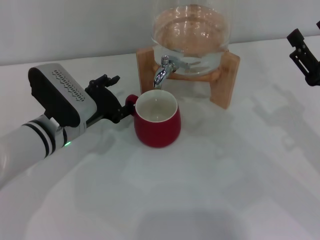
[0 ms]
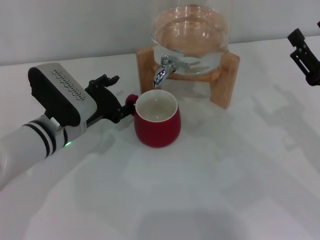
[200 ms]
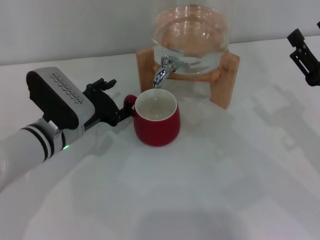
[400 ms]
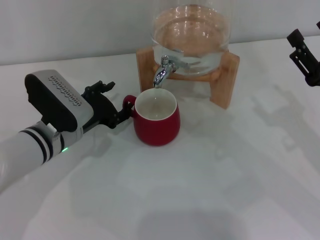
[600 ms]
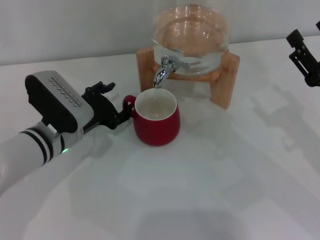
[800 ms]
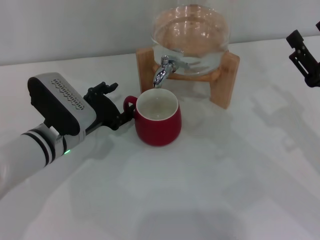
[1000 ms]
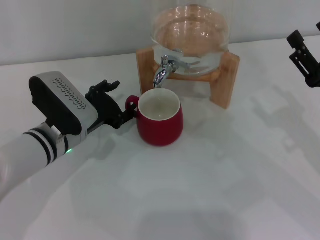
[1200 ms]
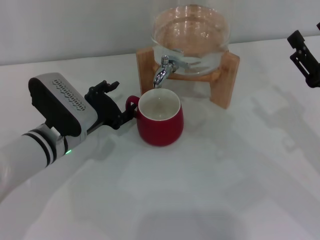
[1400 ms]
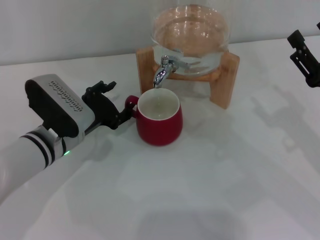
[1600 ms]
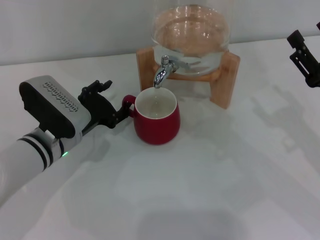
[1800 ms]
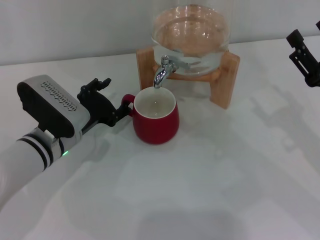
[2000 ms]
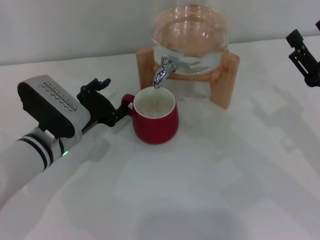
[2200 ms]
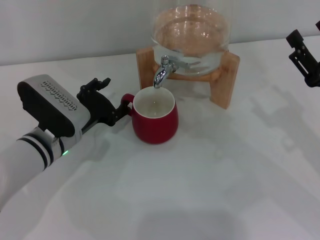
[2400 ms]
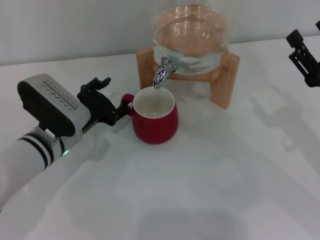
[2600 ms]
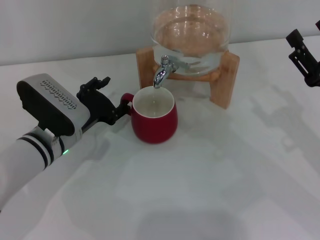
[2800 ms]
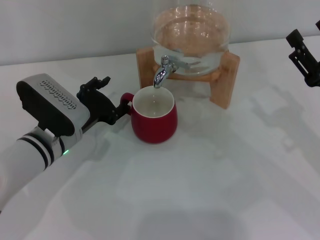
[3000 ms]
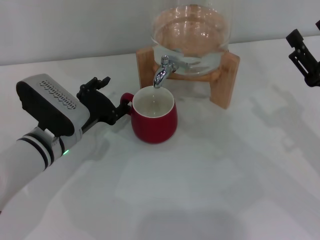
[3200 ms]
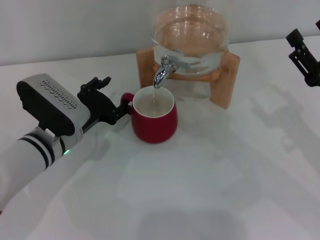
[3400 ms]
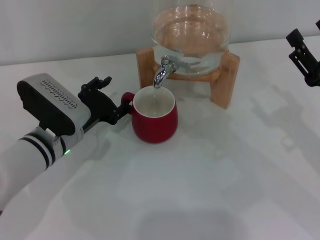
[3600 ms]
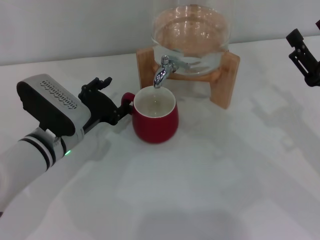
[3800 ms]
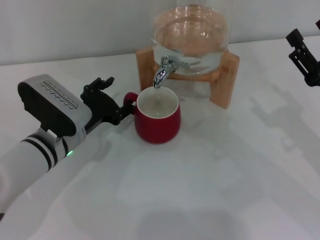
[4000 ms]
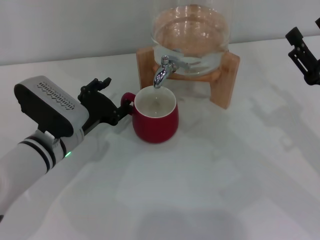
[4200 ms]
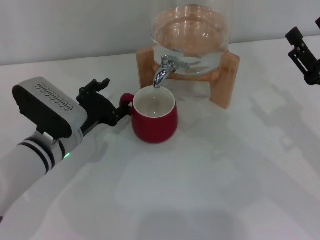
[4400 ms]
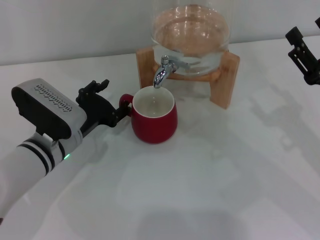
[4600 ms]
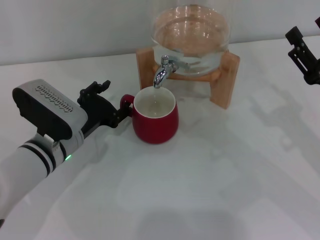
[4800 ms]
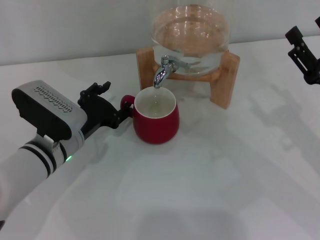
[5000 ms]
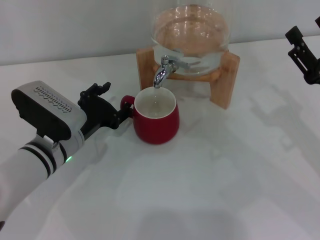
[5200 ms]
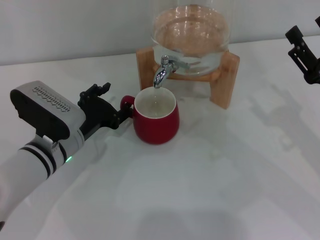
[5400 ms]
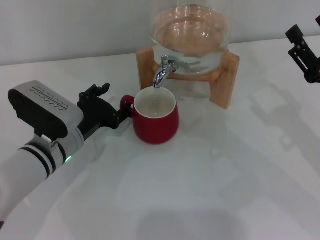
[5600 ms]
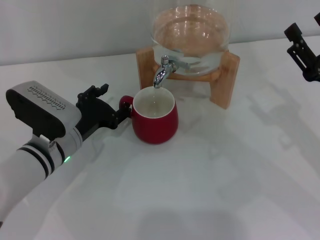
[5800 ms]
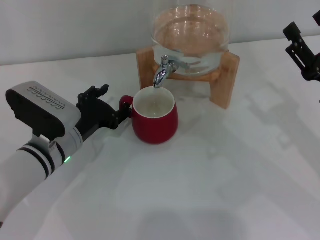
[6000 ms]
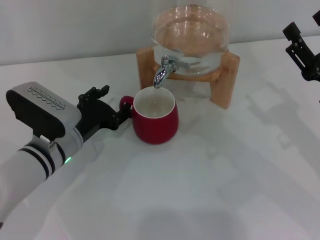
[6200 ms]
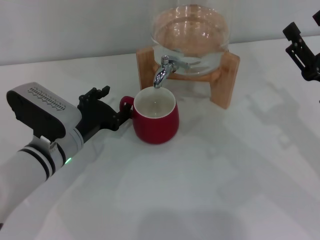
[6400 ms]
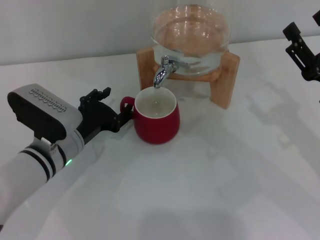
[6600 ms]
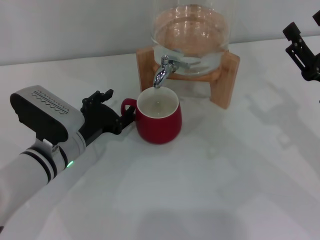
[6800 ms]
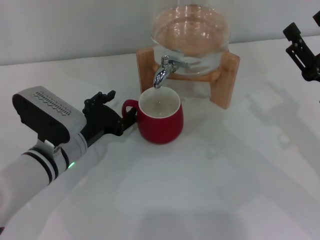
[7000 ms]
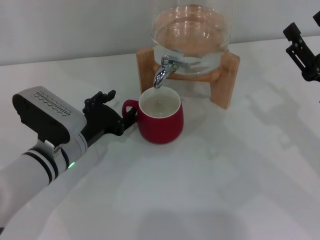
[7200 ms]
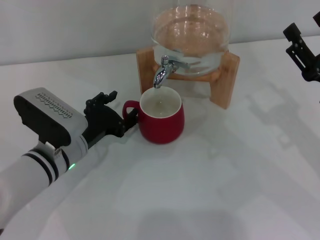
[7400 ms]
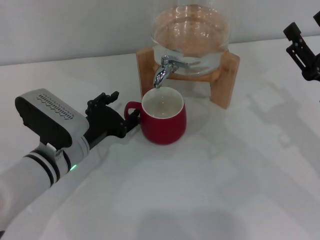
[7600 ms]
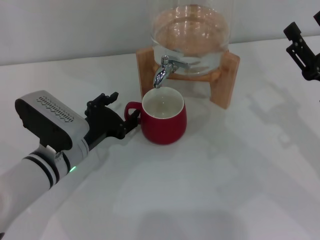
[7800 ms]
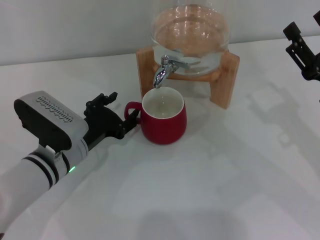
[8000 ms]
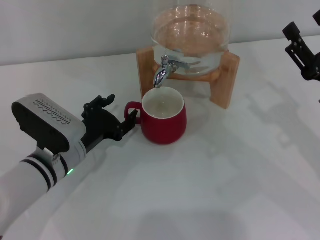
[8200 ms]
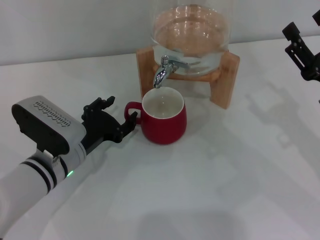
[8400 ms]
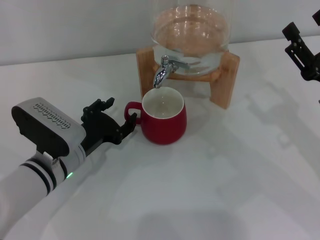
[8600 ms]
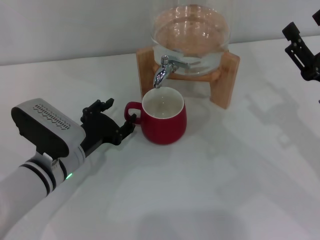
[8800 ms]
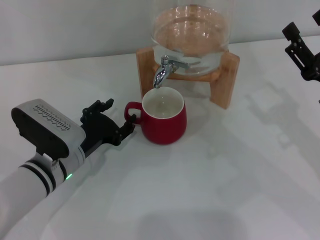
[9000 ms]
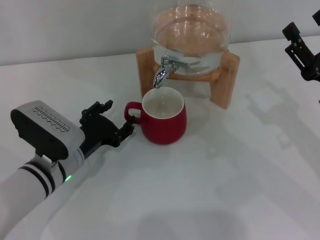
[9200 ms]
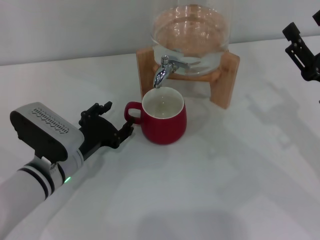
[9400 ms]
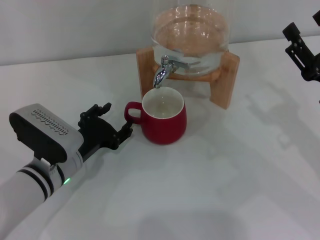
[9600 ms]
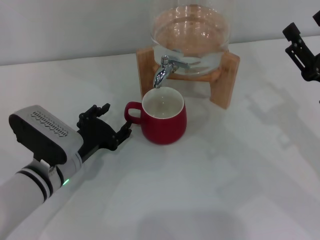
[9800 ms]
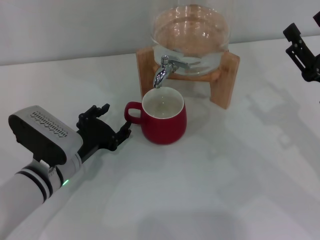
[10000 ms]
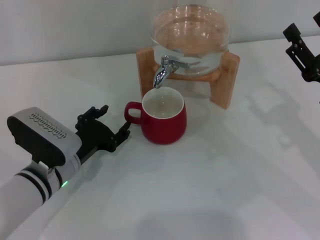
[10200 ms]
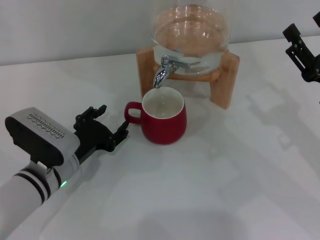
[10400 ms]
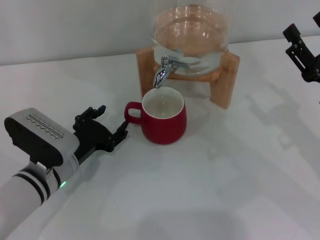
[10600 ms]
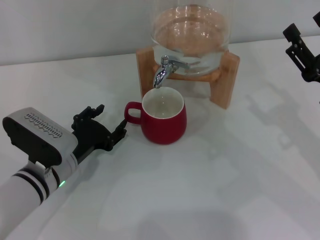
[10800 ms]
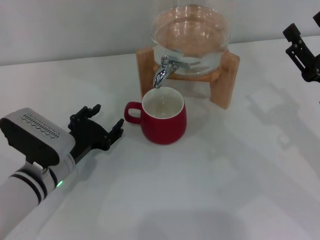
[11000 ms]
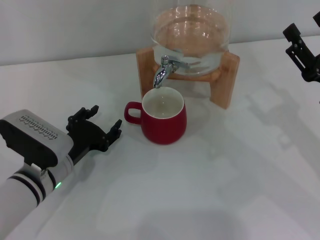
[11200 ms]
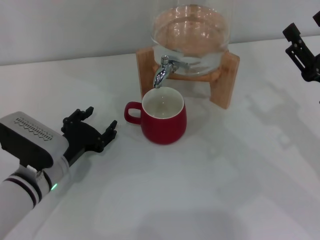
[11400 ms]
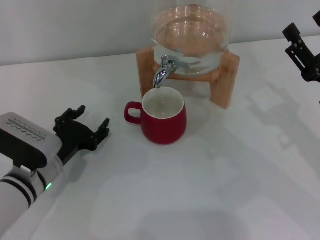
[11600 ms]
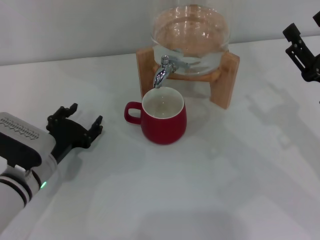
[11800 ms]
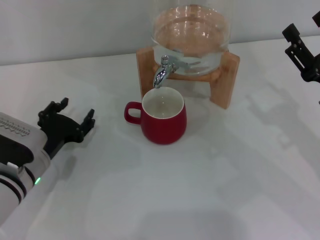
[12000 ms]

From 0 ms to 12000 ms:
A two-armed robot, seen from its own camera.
Task of the whole recording: the left gripper pick up the red cup and place it horizontally under the faucet, the right gripper turn on the faucet to fill the cup, and then turn off the faucet.
Step, from 0 ms to 9400 ms: Move the cup beneath the water dispenser nozzle with the left gripper.
From 0 ms to 3000 ms: The grippers stay close to where they were, moving slightly.
From 3000 ms to 4400 ms: The two grippers keep their place.
From 4400 ms to 6000 ms: There are only small adjustments of the grippers.
From 6000 ms to 7600 ms: Both grippers stay put.
From 7600 ms to 9000 ms: The grippers make only small movements.
From 9000 ms to 10400 ms: Both grippers stay put.
From 10400 ms to 12000 ms: The grippers stay close to where they were, moving slightly.

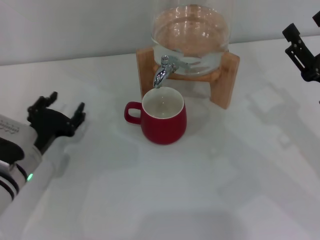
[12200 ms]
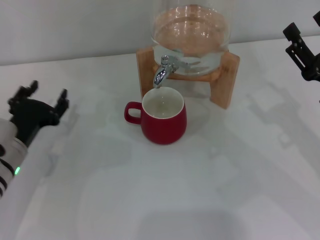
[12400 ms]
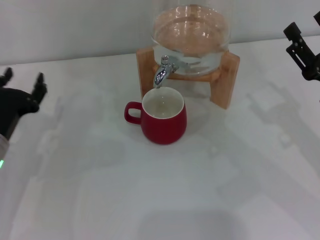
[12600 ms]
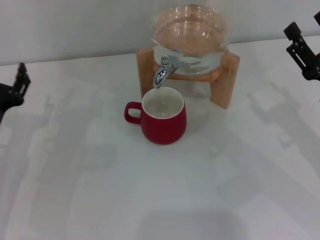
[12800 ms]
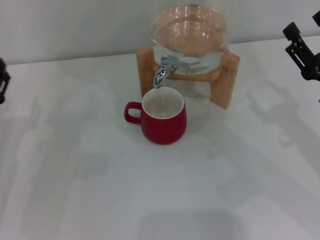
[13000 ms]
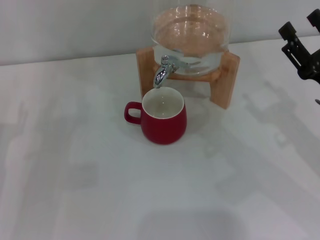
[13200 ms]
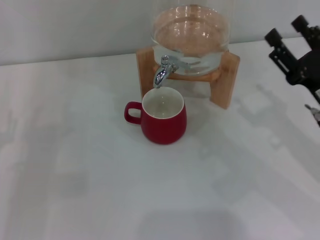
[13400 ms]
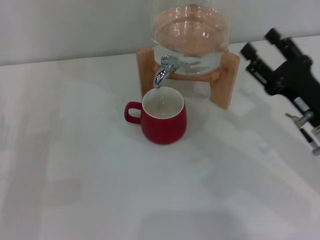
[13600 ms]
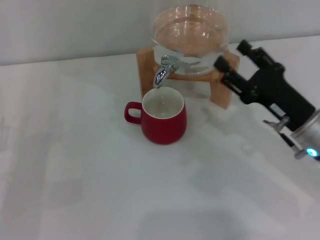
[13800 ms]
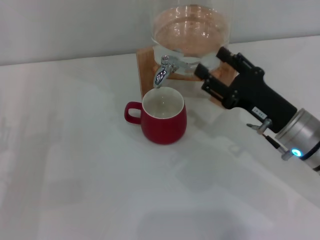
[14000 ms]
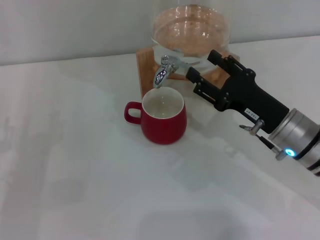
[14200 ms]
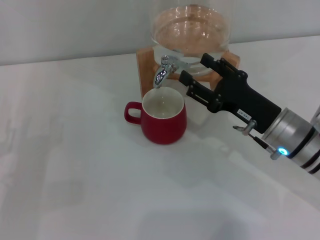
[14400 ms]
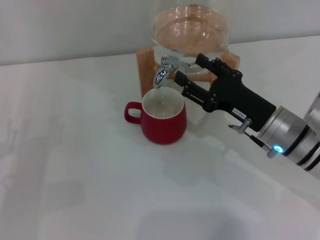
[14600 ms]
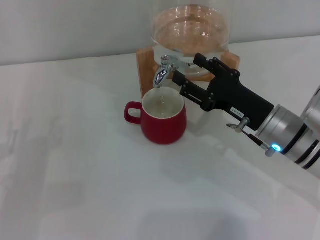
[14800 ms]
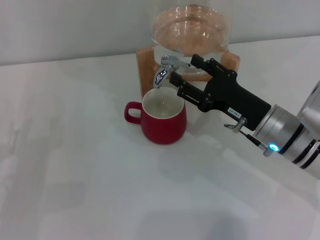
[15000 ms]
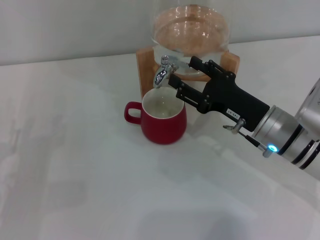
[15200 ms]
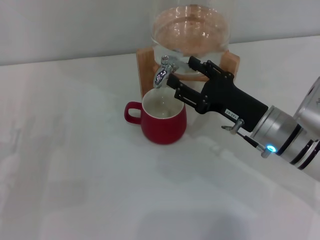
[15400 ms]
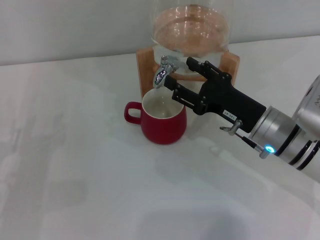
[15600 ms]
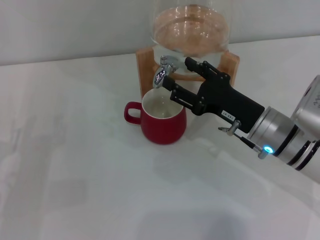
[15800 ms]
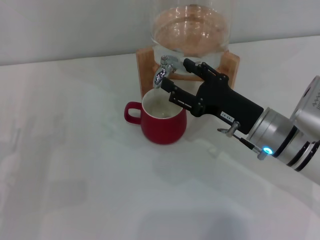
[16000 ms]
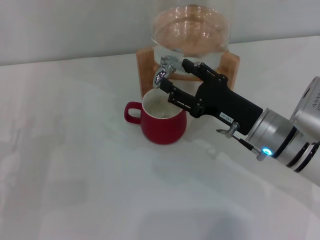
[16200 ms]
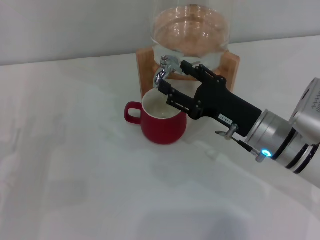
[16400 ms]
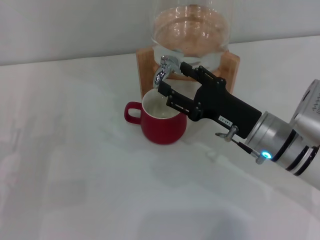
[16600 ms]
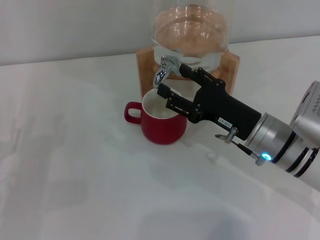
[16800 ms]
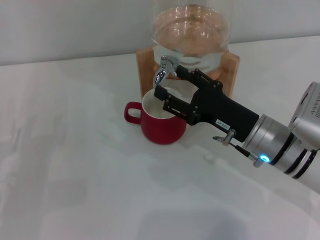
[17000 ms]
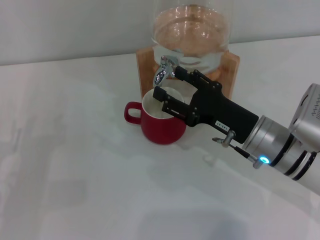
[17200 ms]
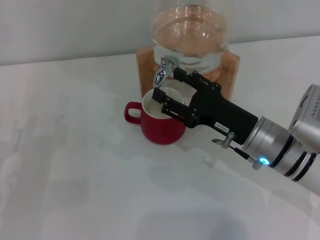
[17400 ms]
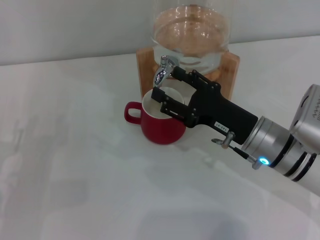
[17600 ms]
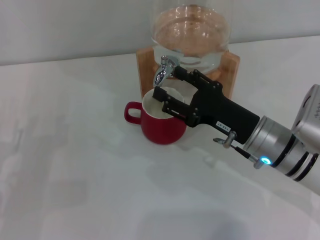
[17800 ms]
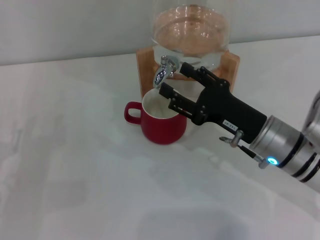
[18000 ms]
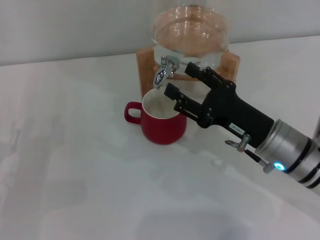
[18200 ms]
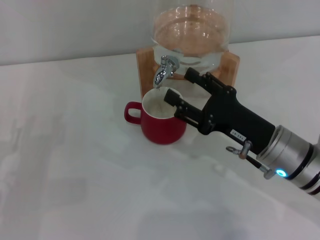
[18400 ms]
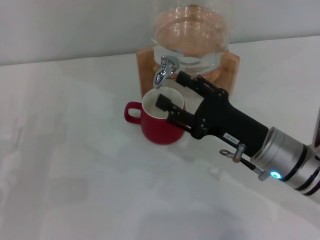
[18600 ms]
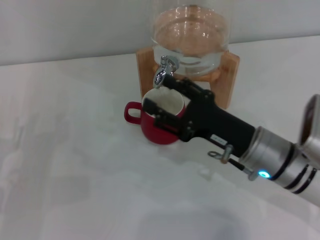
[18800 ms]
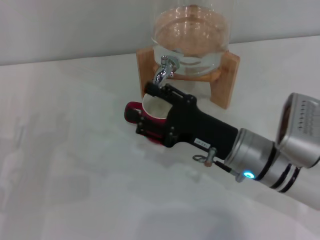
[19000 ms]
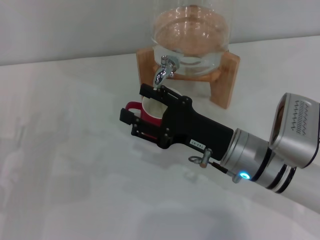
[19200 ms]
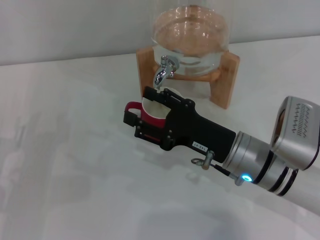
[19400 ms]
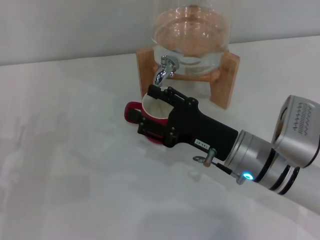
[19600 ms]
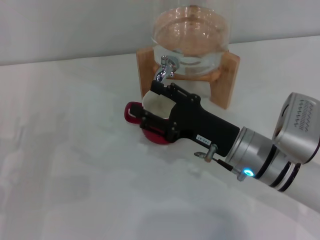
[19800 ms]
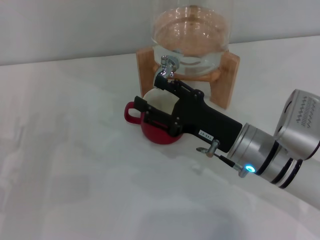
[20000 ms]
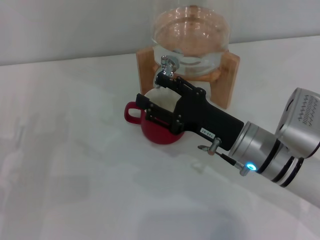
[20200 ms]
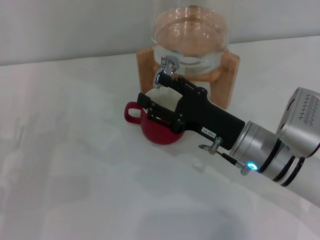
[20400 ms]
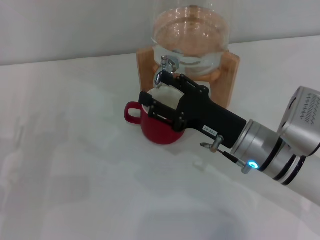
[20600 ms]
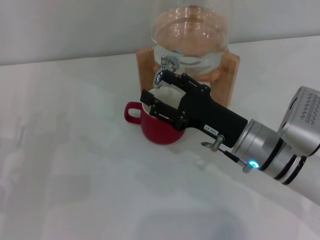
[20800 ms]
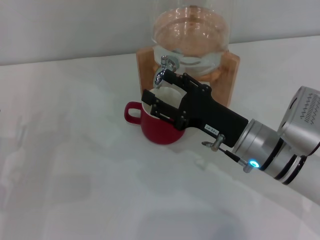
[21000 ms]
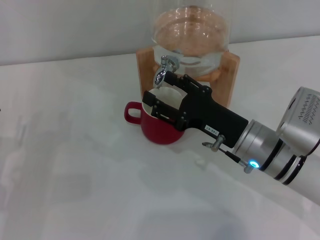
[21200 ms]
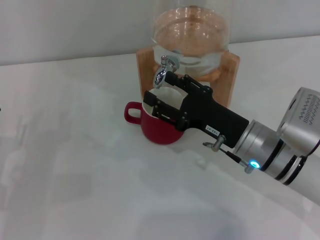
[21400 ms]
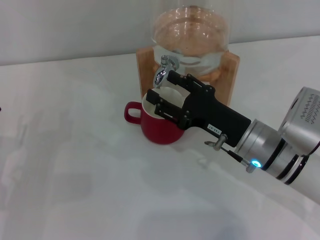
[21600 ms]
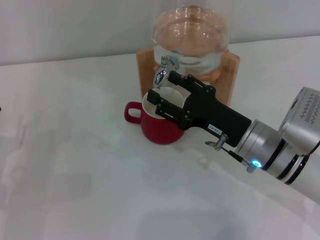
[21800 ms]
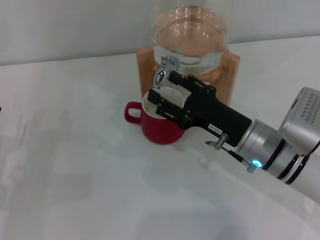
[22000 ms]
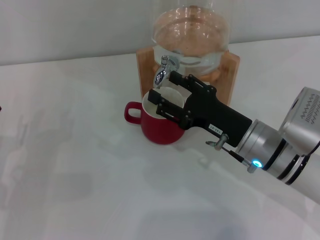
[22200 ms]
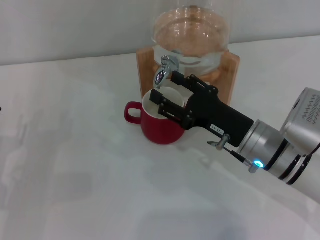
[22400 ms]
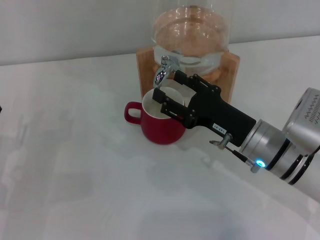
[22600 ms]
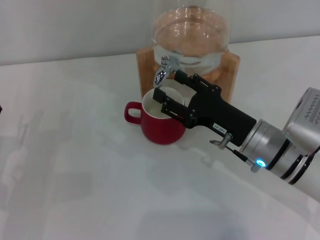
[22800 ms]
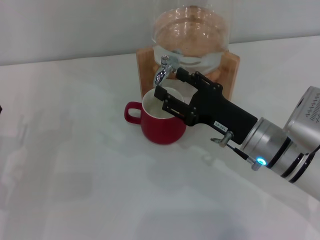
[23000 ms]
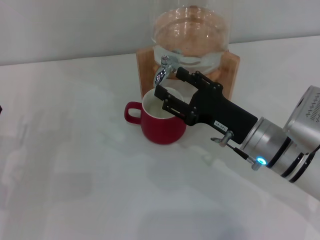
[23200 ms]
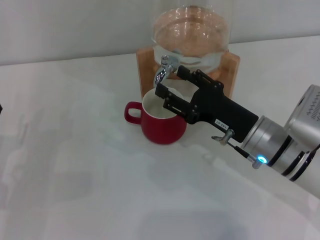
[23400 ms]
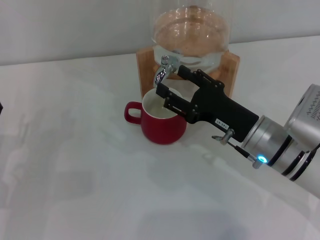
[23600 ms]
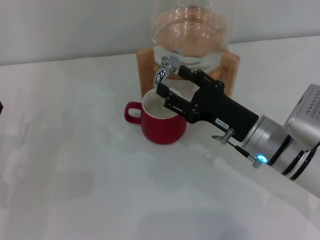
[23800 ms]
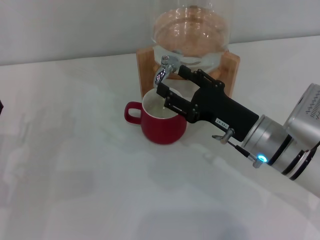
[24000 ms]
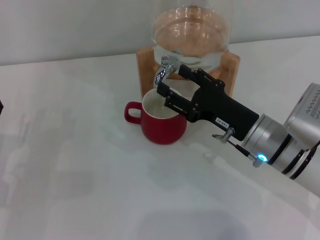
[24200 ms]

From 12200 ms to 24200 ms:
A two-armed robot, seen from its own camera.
Task of the whole recording: the left gripper pick up the red cup and place it horizontally under the faucet, the right gripper turn on the faucet to fill the cup, and then turn off the faucet.
Step, from 12200 ms to 17800 ms: Open the dispenser valve and fill the cup with water with the right gripper.
From 12200 ms to 13800 ms: The right gripper is displaced to the left by roughly 5 cm. The left gripper is displaced to the left and backward by some 10 cm.
From 13800 ms to 15200 ms: The right gripper changes place by about 5 cm.
From 15200 ms to 16600 ms: The two grippers keep their place.
From 16600 ms to 19800 ms: The grippers stay close to where they were, moving slightly.
From 19800 ms to 21200 ms: Both grippers stay put.
From 21200 ms to 22600 ms: Both grippers stay put.
From 22600 ms to 24200 ms: Both grippers stay put.
